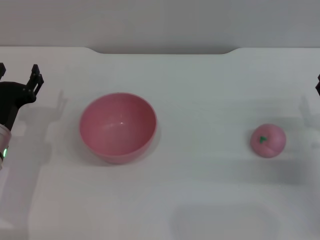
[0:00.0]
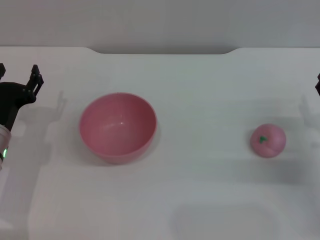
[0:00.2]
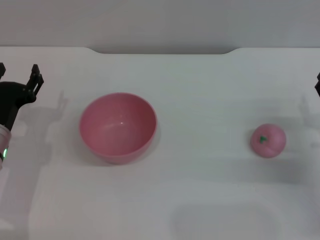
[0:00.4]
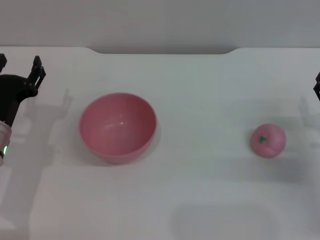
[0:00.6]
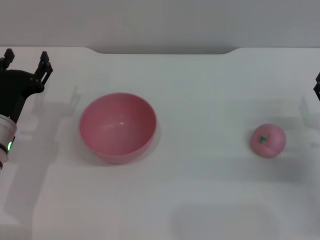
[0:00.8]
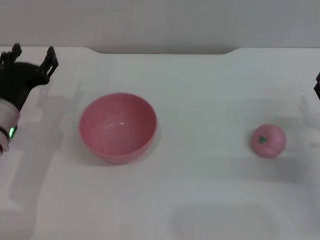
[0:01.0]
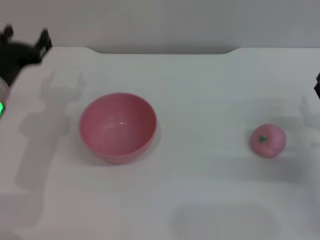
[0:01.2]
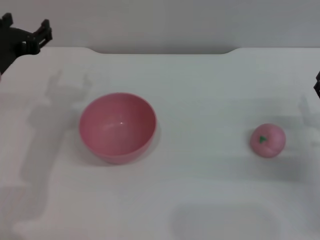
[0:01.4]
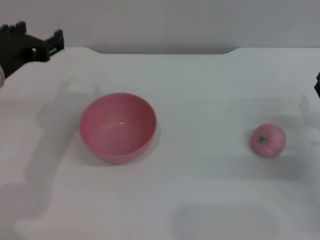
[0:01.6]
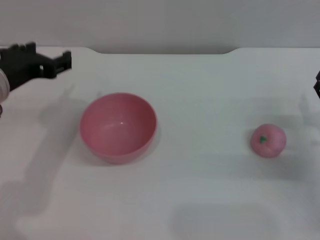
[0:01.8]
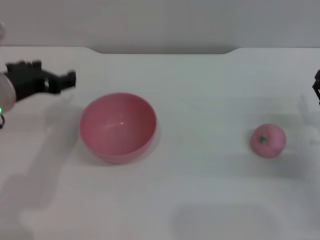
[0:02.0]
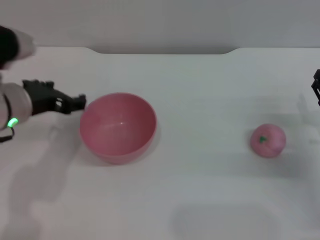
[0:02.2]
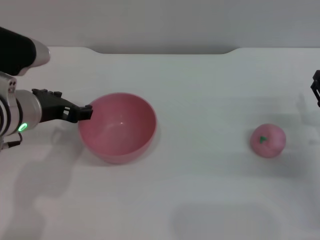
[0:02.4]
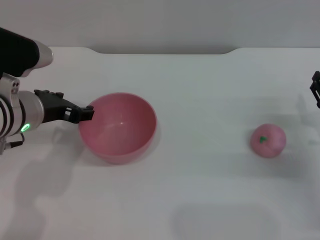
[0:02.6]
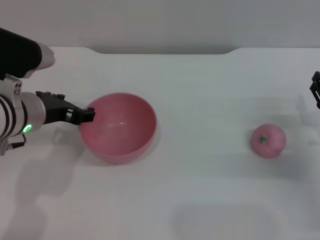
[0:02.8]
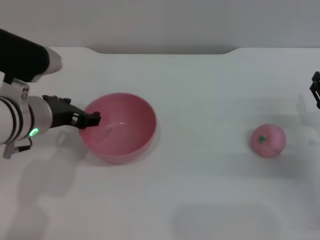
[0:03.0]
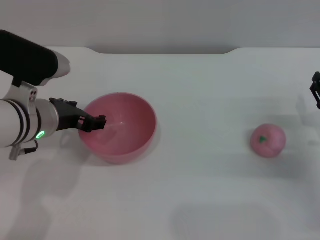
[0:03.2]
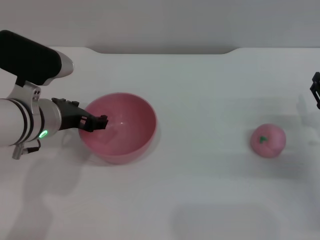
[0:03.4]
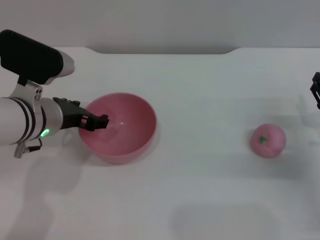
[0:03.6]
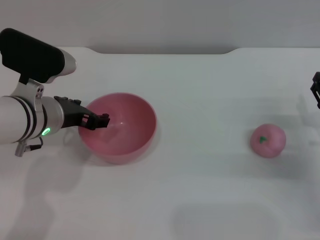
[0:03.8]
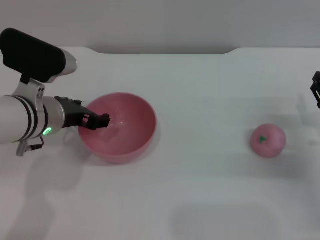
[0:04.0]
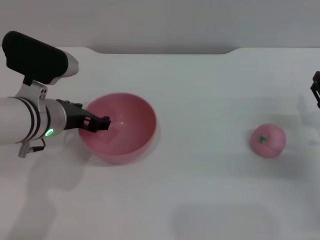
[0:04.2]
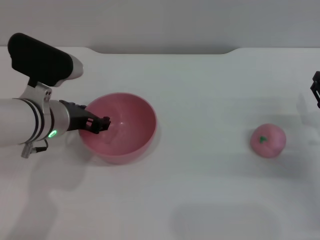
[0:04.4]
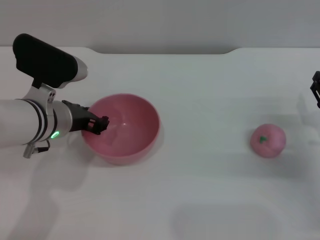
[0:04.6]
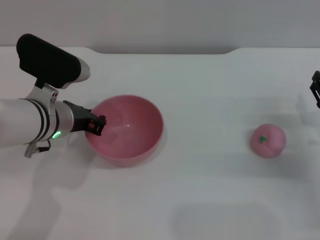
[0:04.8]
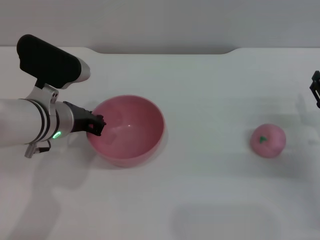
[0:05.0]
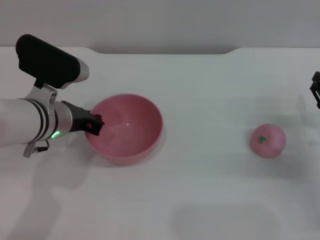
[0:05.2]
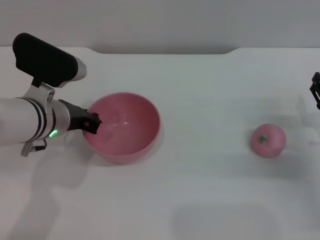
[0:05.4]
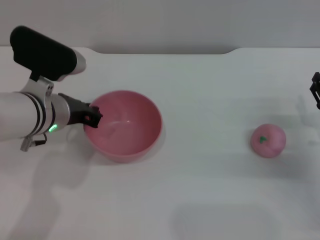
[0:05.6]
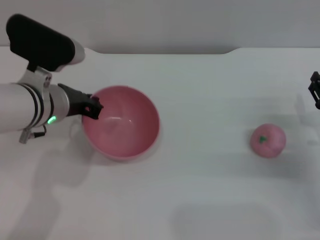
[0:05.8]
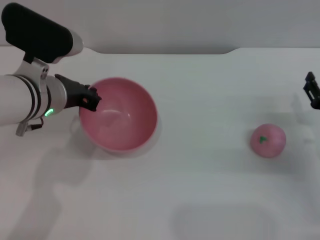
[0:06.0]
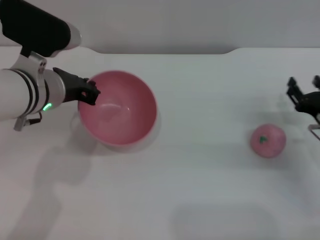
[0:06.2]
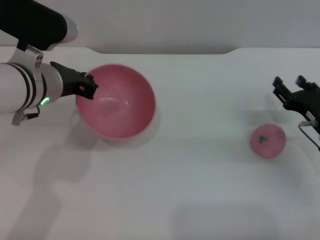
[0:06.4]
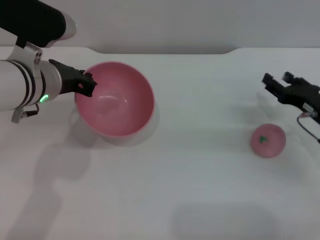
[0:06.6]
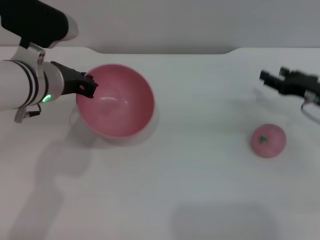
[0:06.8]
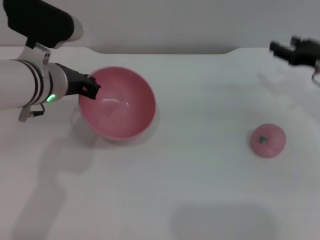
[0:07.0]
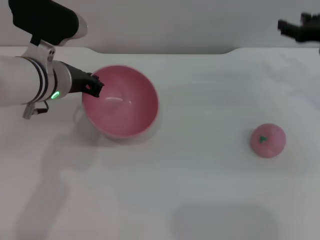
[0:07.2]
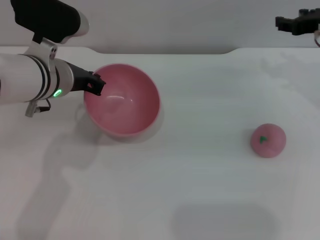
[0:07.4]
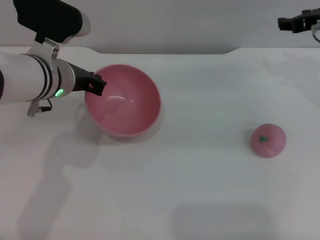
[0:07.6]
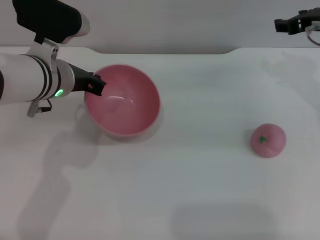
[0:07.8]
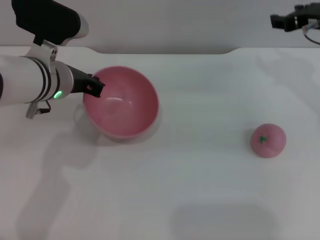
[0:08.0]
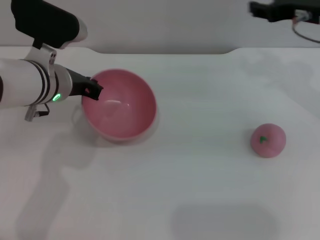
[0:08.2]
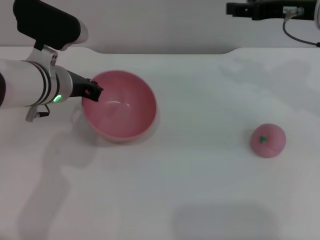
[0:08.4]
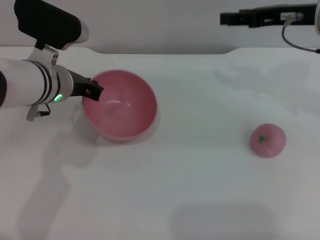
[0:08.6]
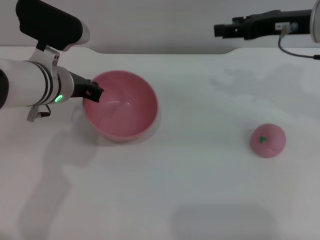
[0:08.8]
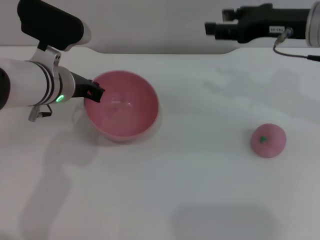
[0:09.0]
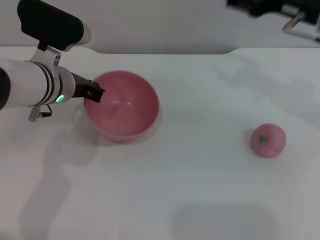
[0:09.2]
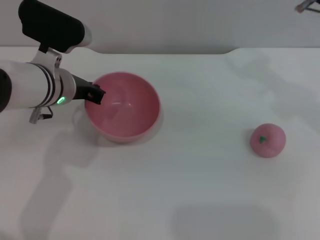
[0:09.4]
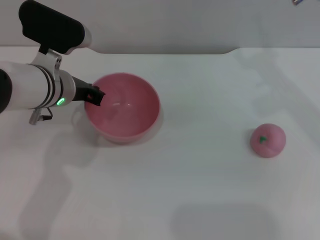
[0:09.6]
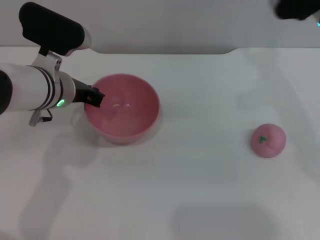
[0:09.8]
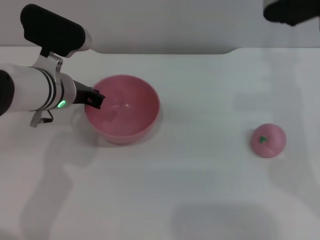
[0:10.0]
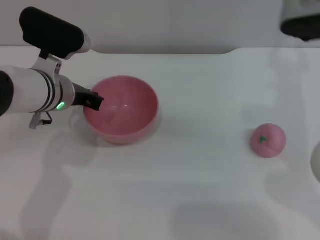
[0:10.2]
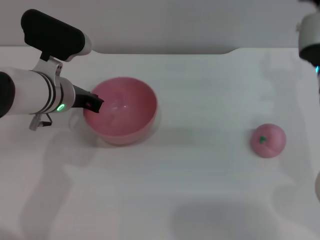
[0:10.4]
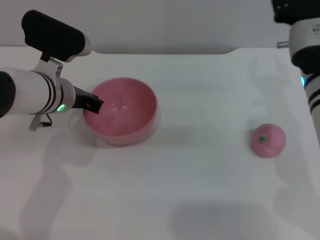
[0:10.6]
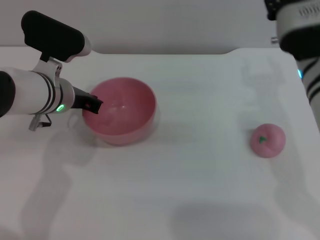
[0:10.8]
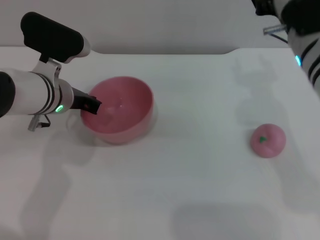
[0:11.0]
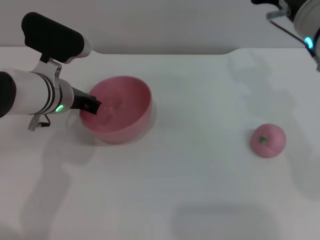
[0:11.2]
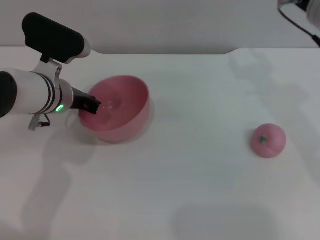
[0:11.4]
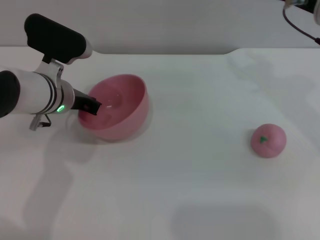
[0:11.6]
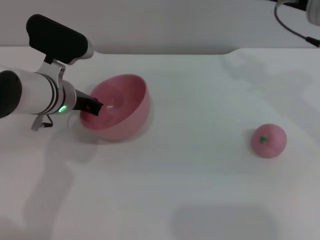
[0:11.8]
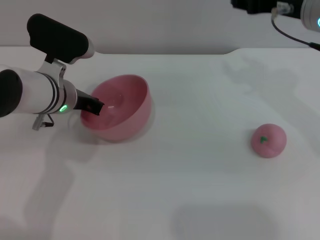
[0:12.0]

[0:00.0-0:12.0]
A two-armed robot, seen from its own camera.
Task of the whole recording: put the peach into the pink bowl and pour it out repeatedly.
Step, 0:00.0 to 0:07.2: Pick up the bowl with the left gripper.
0:00.0 to 0:01.6: The left gripper travels upward by approximately 15 cm.
0:01.6 to 0:03.0: The left gripper goes about 5 cm downward.
0:03.0 to 0:04.4: There are only small adjustments of the grippers.
0:04.4 to 0:06.0: The left gripper closes.
0:06.0 to 0:07.6: The right gripper shifts approximately 20 cm upward and forward.
0:07.6 to 0:09.0: The right gripper shifts by approximately 5 cm.
0:09.0 to 0:10.4: The right gripper is displaced backward and downward by some 10 cm.
0:10.4 to 0:12.0: The right gripper travels upward by some 5 cm.

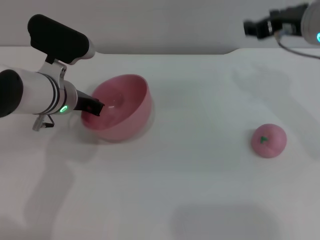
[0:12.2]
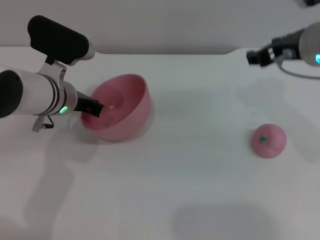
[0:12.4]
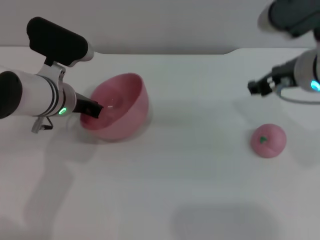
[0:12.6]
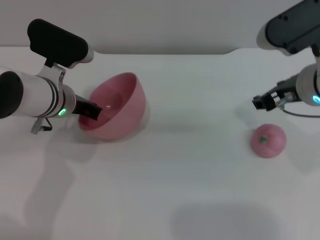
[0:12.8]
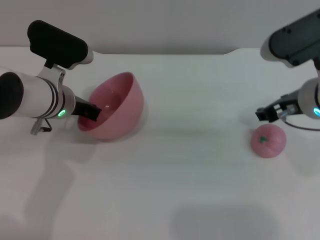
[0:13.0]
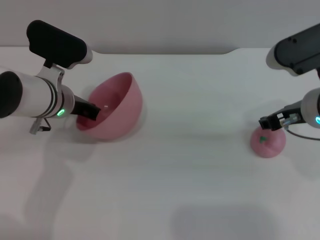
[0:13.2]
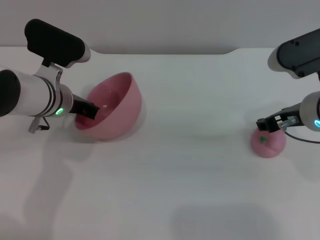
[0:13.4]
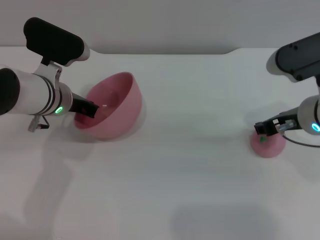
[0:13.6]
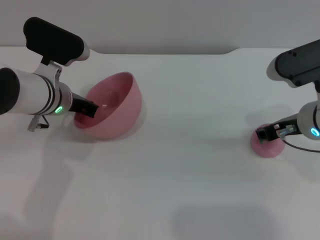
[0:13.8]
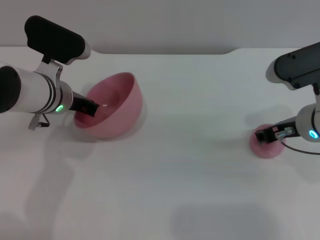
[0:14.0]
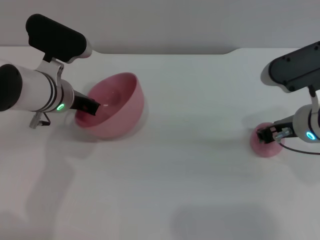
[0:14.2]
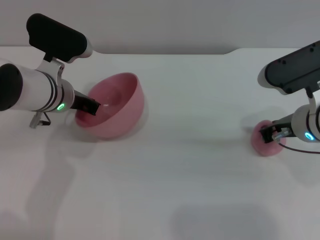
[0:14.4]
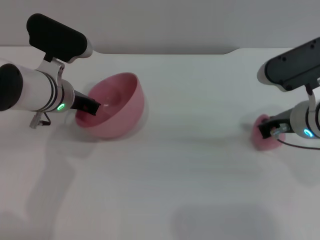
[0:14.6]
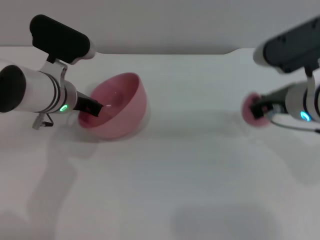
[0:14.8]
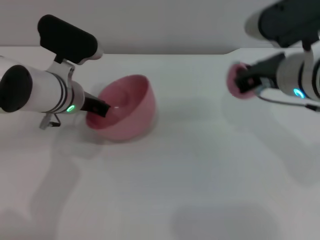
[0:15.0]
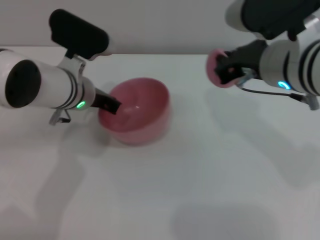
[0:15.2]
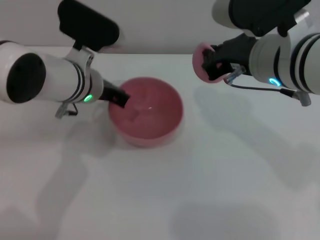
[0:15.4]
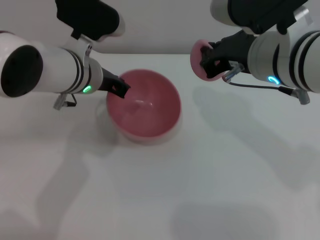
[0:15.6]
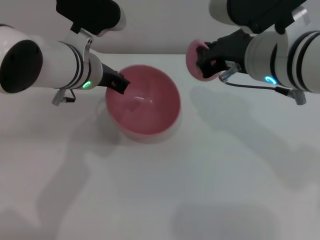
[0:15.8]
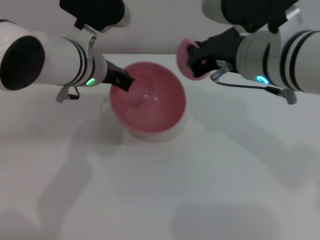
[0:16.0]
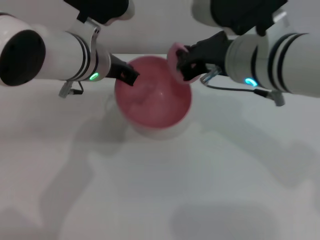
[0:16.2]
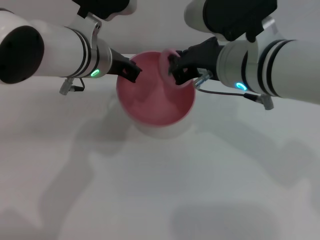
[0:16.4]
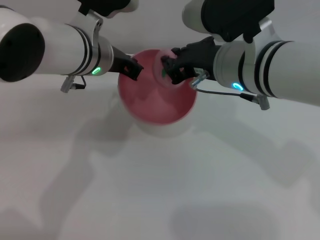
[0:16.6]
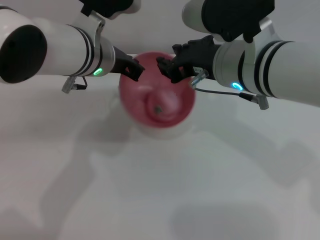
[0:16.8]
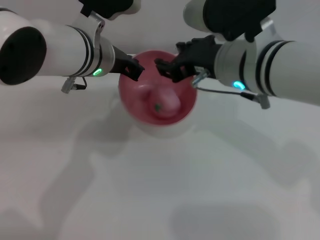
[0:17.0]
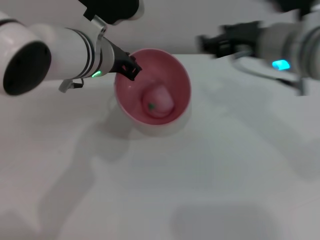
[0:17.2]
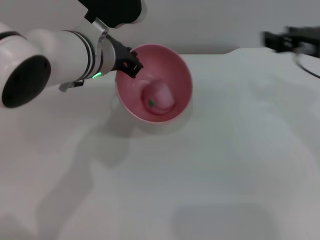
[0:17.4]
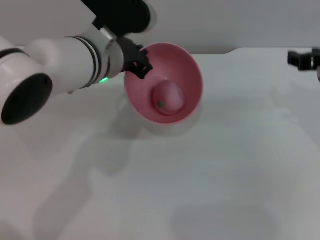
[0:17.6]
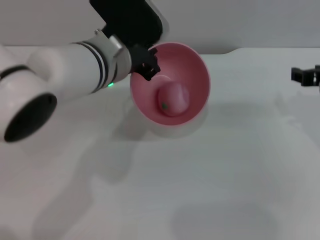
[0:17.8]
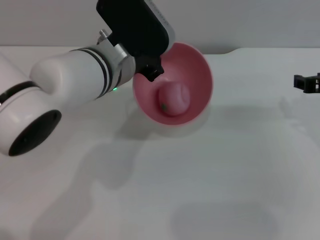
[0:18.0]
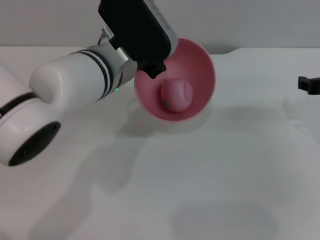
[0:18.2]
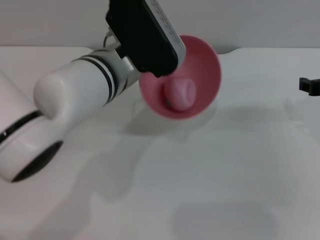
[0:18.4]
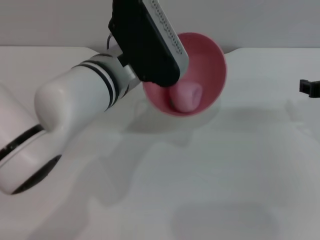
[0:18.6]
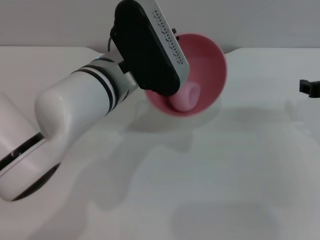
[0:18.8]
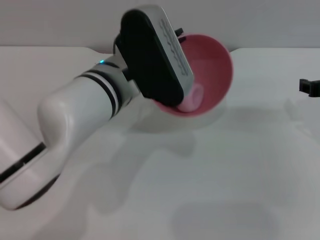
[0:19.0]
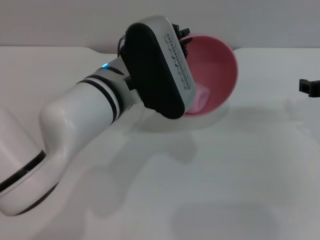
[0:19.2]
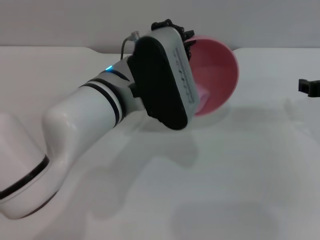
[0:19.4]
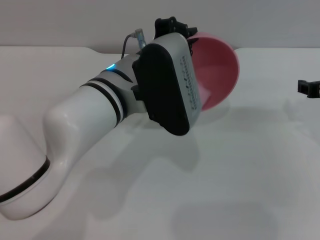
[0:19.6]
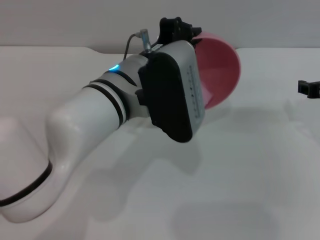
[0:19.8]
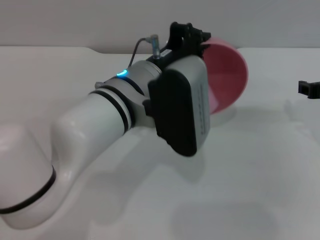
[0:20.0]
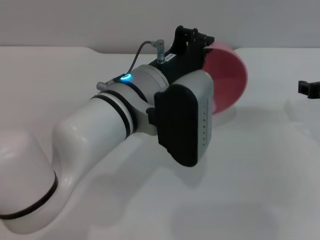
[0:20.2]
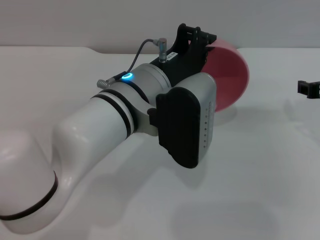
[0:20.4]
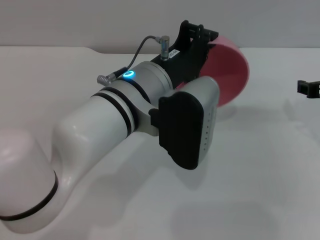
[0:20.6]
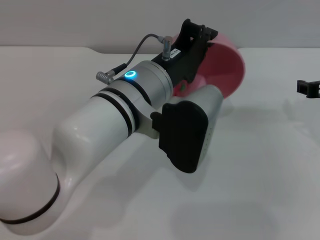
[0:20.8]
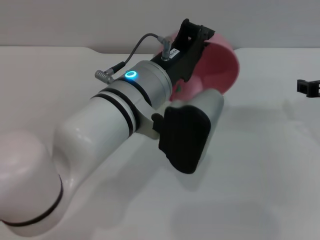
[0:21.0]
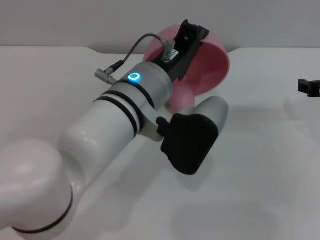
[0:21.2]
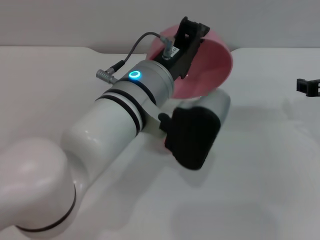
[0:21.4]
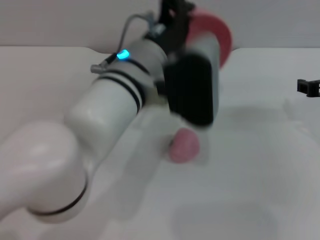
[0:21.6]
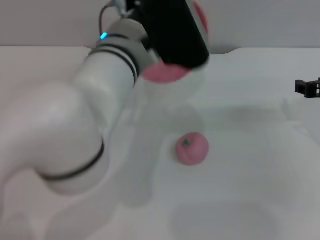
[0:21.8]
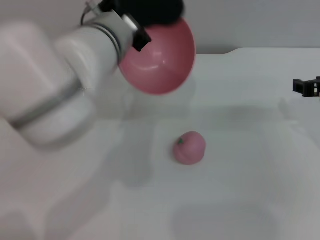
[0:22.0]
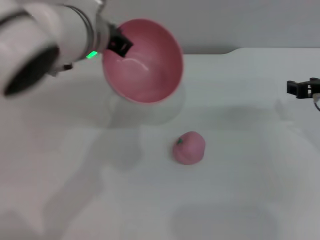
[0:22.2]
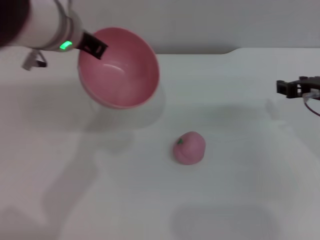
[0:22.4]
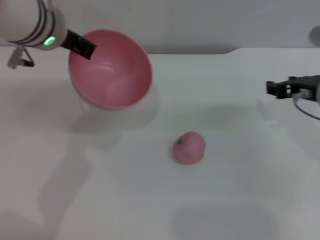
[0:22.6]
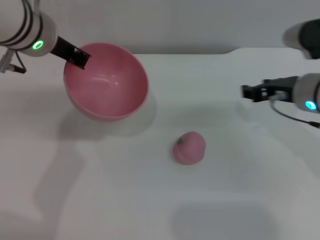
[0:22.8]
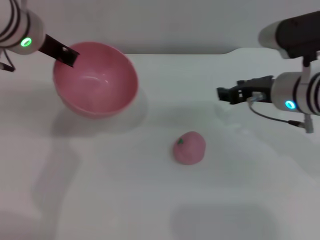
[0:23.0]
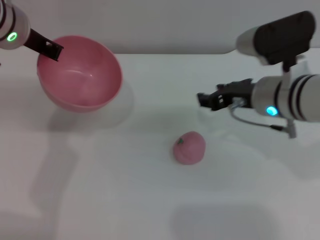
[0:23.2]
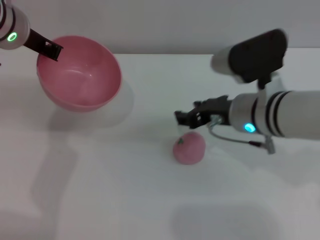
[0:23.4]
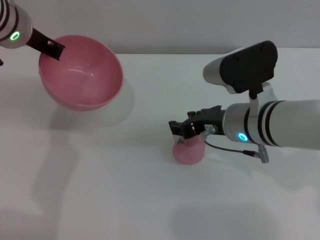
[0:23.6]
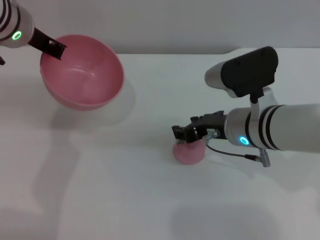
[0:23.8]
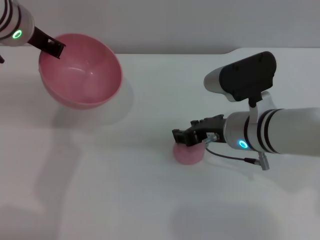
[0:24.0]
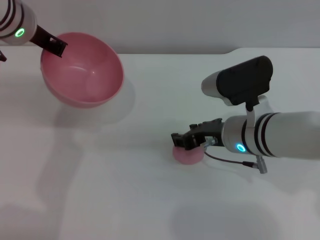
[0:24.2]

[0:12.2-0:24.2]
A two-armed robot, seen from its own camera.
Task of the whole recording: put the peach into the pink bowl and pour it out repeatedly.
Step, 0:12.2 to 0:15.2: Pick up the peach with the right gripper.
Step, 0:15.4 to 0:17.0: Place the peach into the bowl.
Step, 0:17.4 to 0:21.4: Pour the peach out of bowl.
0:12.2 to 0:13.8: The right gripper travels downward and backward by approximately 10 cm.
0:13.8 to 0:15.2: The right gripper shifts roughly 10 cm upward and to the left, and closes.
0:15.2 to 0:16.6: The left gripper heads upward, covering approximately 5 cm.
0:16.6 to 0:18.2: The right gripper heads to the right, covering approximately 20 cm, and opens.
0:21.2 to 0:22.6: The left gripper travels to the left, forward and upward by approximately 15 cm.
0:22.6 to 0:24.2: The right gripper goes roughly 10 cm to the left, while the left gripper moves roughly 5 cm.
